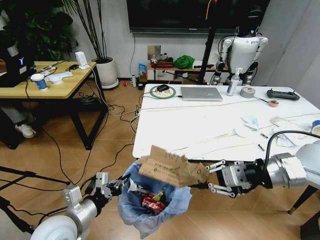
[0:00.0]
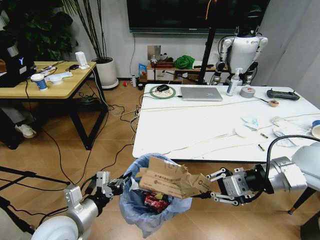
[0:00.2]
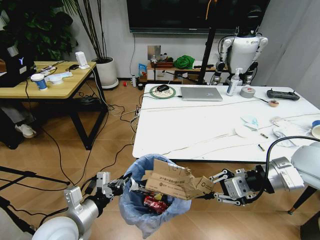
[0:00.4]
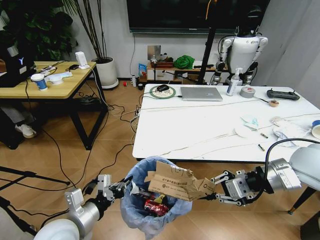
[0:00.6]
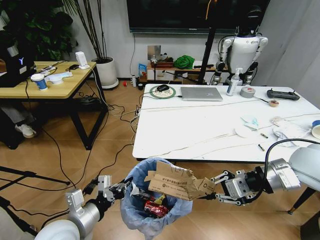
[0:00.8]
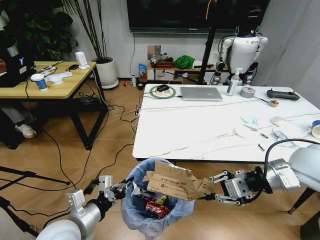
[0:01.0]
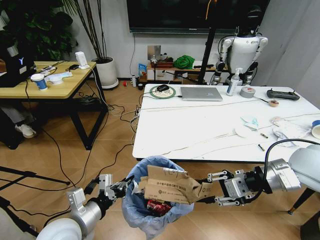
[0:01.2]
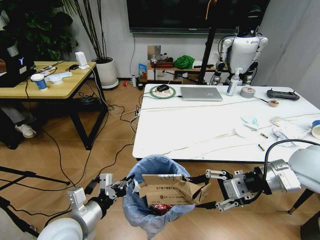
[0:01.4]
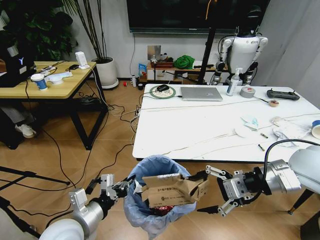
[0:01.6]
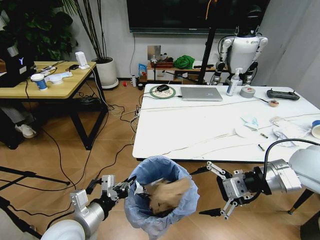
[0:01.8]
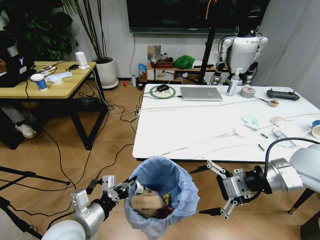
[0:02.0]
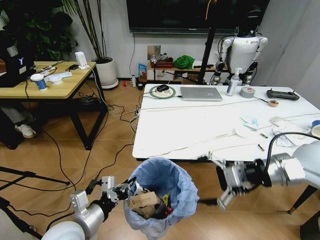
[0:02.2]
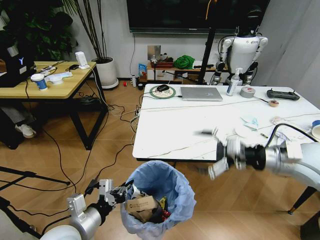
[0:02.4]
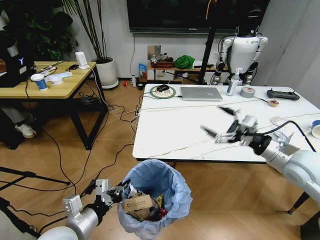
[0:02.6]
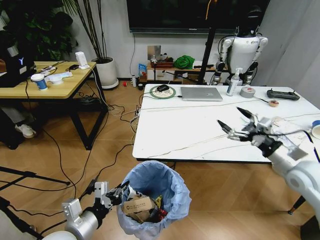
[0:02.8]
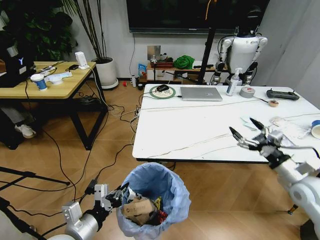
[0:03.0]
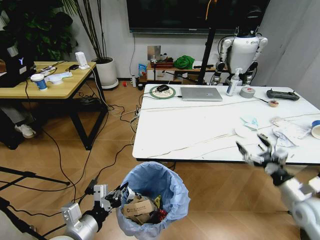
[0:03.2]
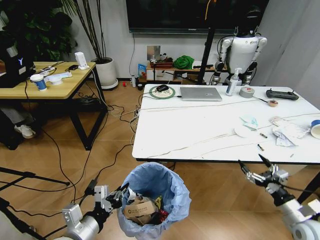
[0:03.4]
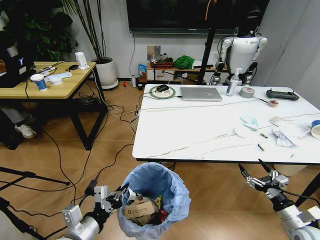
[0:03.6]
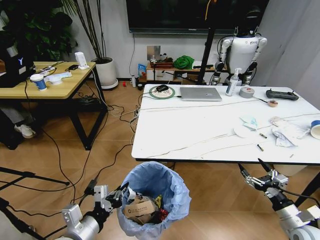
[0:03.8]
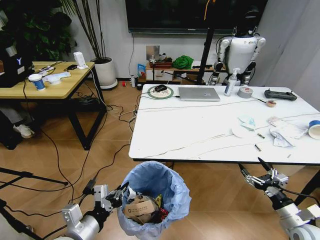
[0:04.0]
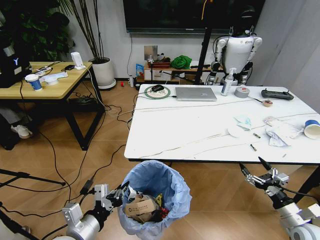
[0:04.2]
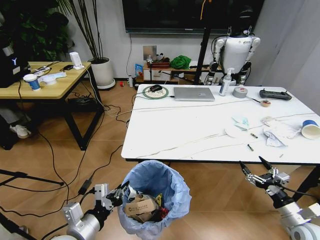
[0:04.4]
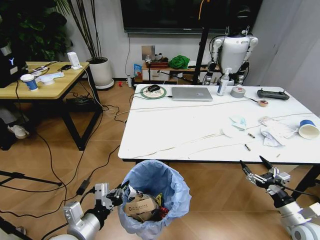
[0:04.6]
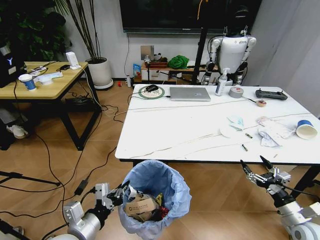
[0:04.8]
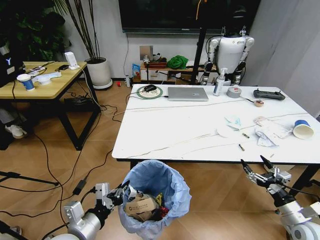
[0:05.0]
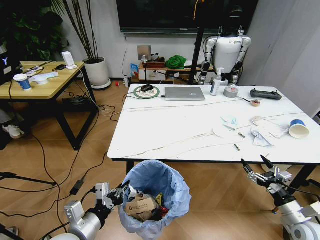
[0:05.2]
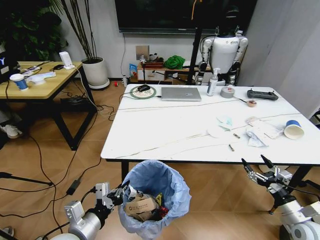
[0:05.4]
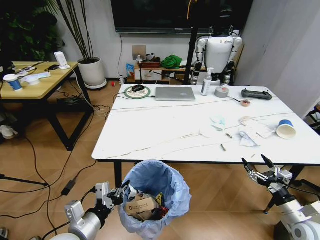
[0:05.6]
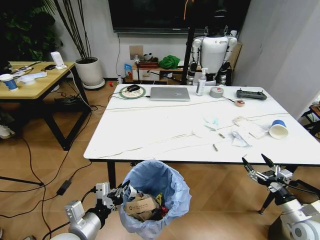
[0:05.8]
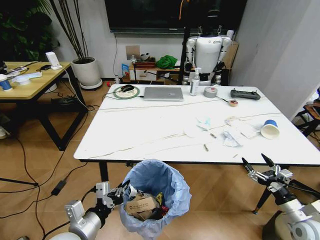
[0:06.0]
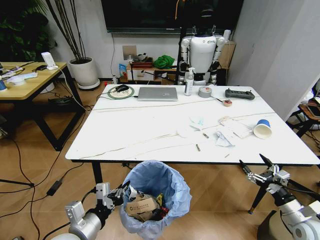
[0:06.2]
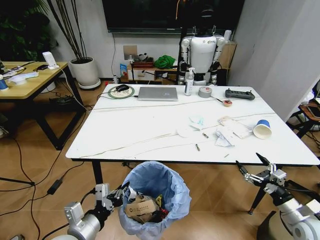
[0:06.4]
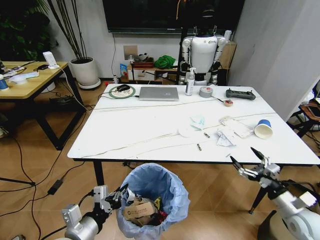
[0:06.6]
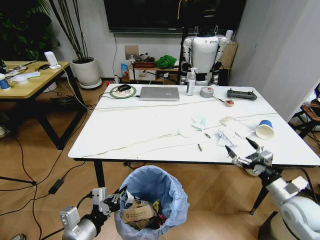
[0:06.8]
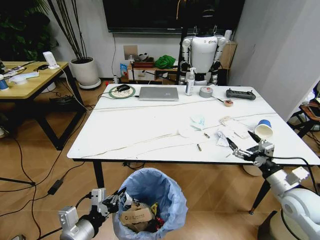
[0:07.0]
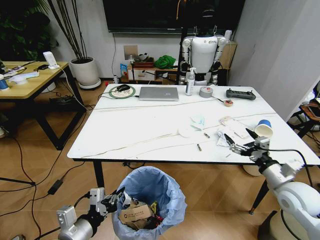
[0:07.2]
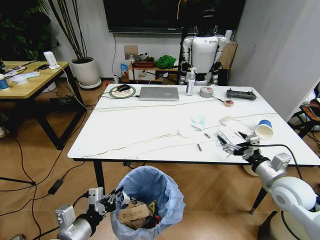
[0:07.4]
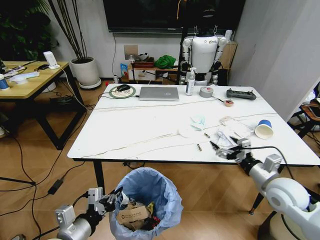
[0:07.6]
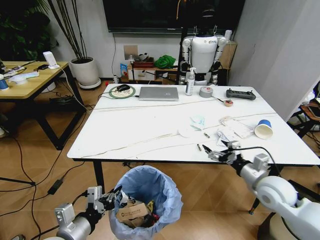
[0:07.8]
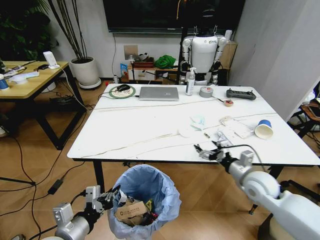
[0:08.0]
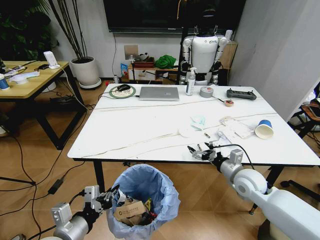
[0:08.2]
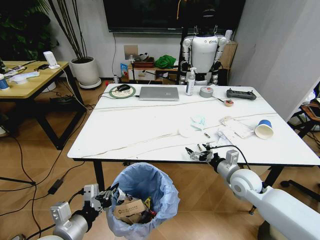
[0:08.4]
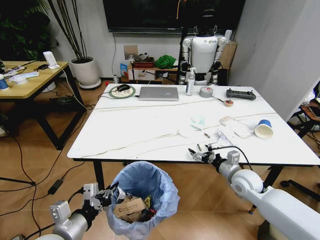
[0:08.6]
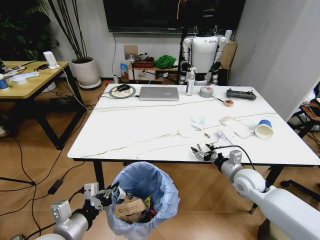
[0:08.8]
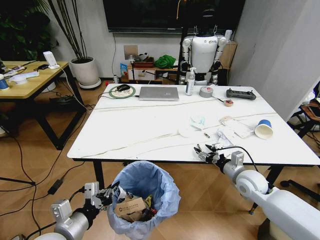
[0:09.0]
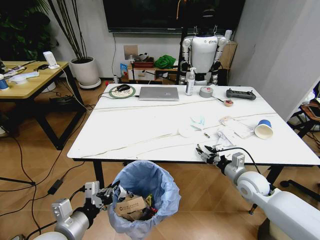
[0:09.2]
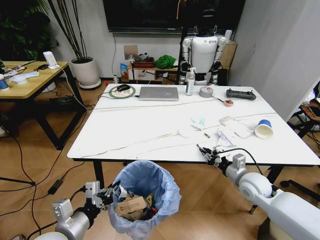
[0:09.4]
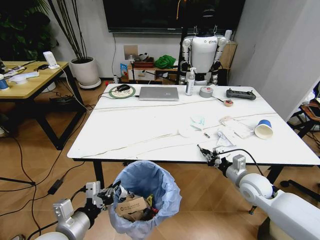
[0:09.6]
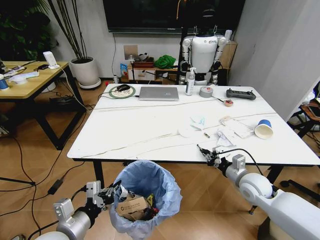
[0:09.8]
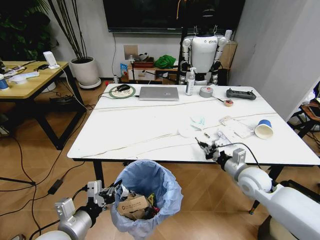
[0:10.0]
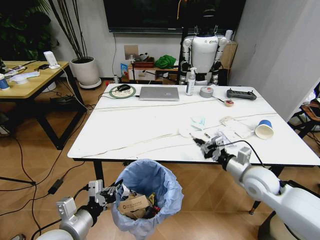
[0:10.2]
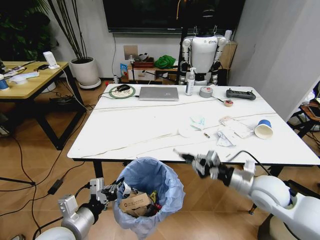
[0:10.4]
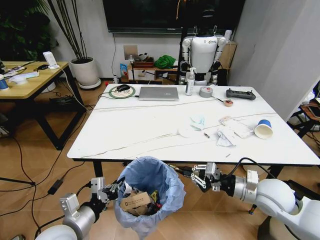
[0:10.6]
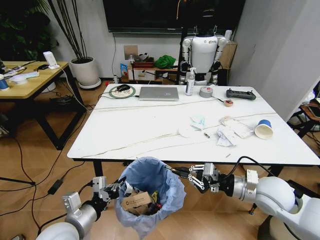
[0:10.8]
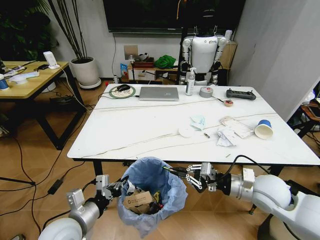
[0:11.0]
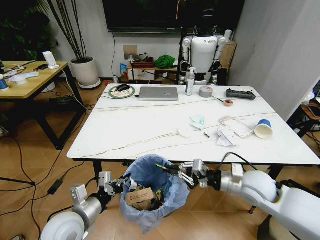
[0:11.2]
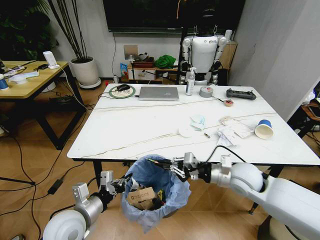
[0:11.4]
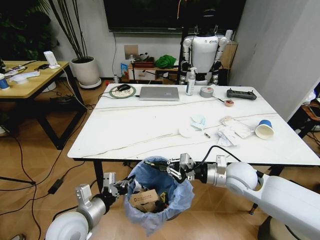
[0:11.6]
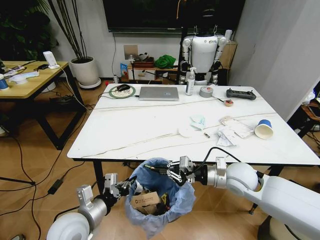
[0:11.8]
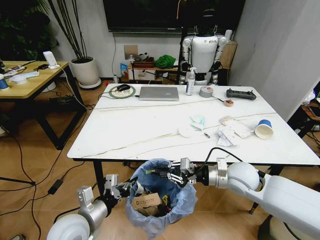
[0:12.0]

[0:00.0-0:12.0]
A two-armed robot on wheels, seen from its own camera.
Task of the whole recording: Pick up the trash bin and place the trash from the table into it.
0:00.0 to 0:01.6: The right gripper opens up.
0:01.6 to 0:03.0: The right gripper travels downward and to the right by some 15 cm.
0:03.0 to 0:04.4: The right gripper heads downward and backward, covering roughly 15 cm.
0:06.0 to 0:07.6: The right gripper shifts some 15 cm upward, to the left and forward.
0:07.6 to 0:09.0: The right gripper heads downward, forward and to the left, covering about 10 cm.
0:09.0 to 0:10.4: The right gripper heads upward and backward, covering some 10 cm, and closes up.
0:10.4 to 0:12.0: The right gripper goes about 5 cm to the left.

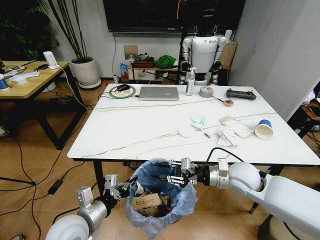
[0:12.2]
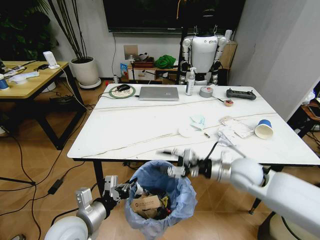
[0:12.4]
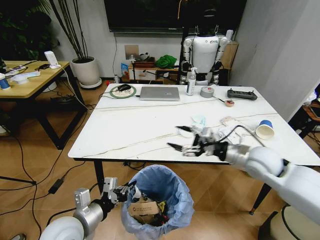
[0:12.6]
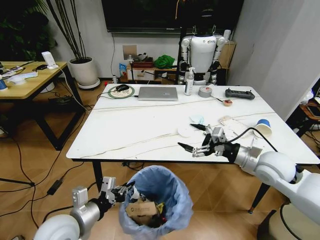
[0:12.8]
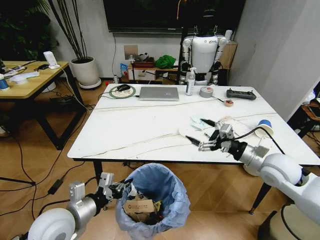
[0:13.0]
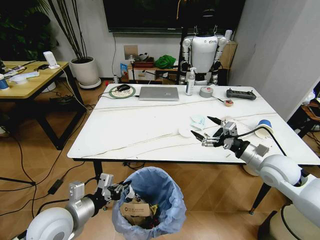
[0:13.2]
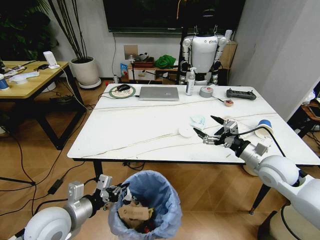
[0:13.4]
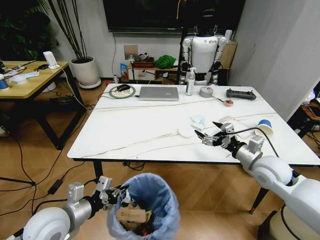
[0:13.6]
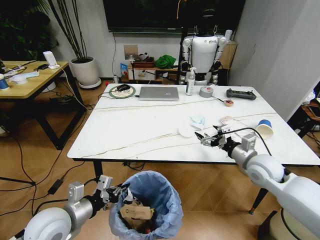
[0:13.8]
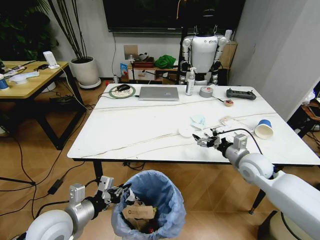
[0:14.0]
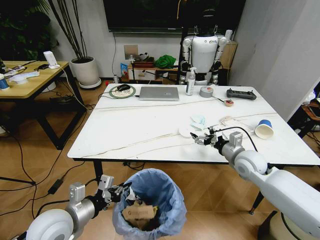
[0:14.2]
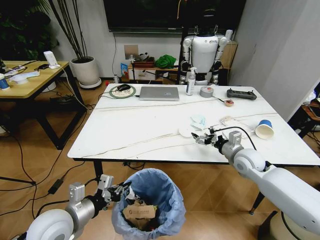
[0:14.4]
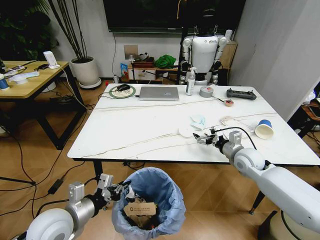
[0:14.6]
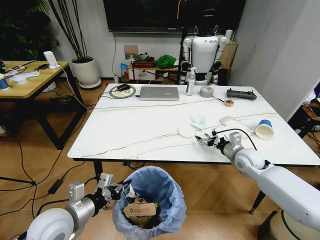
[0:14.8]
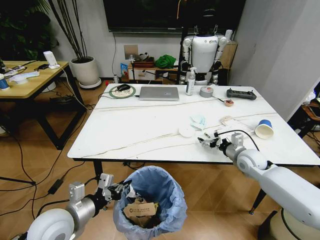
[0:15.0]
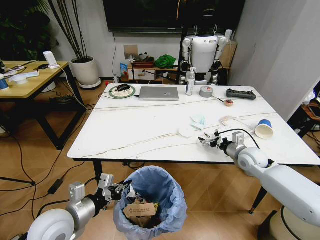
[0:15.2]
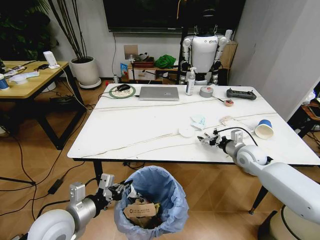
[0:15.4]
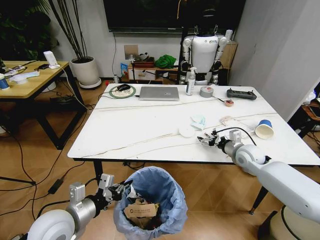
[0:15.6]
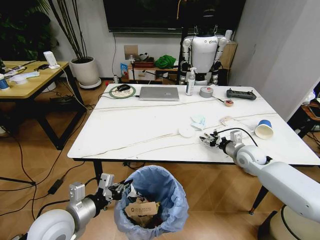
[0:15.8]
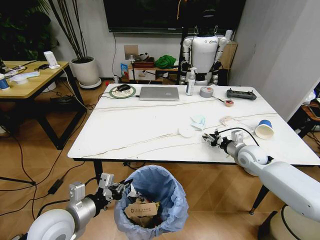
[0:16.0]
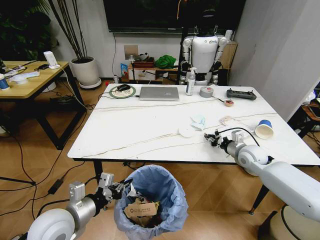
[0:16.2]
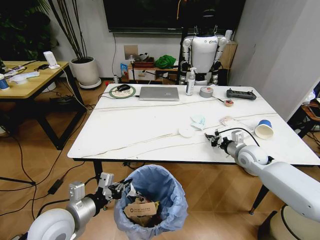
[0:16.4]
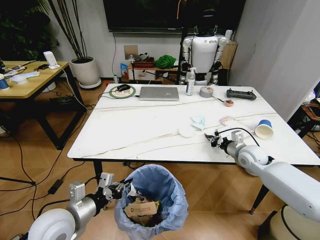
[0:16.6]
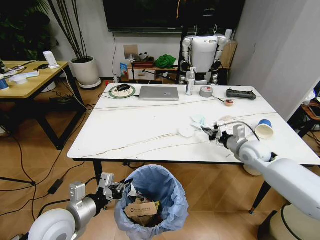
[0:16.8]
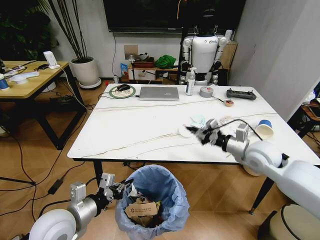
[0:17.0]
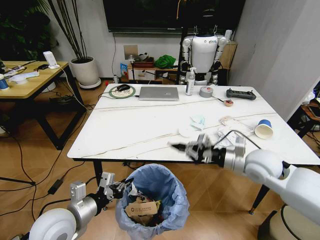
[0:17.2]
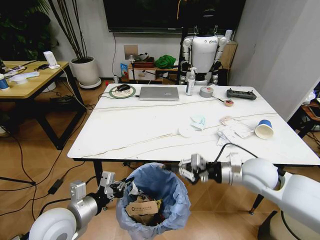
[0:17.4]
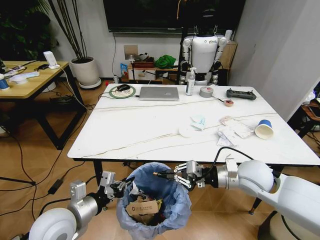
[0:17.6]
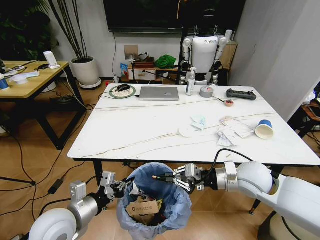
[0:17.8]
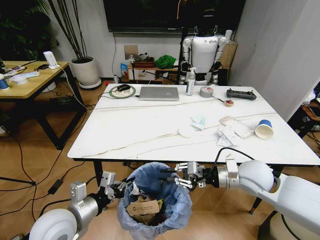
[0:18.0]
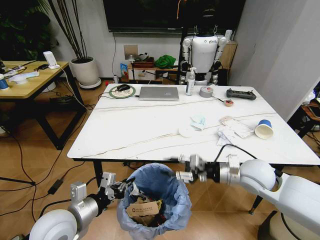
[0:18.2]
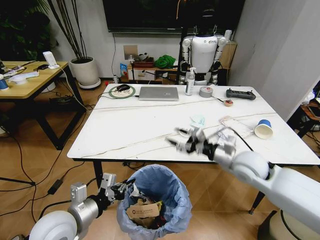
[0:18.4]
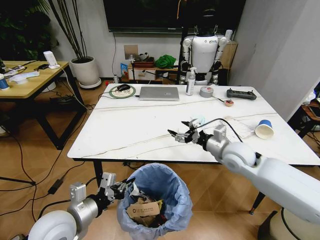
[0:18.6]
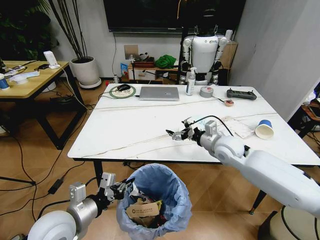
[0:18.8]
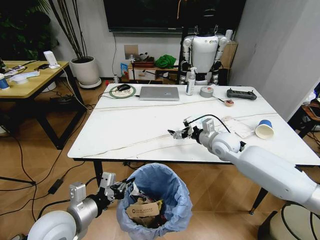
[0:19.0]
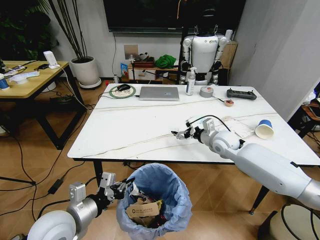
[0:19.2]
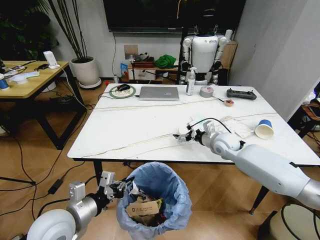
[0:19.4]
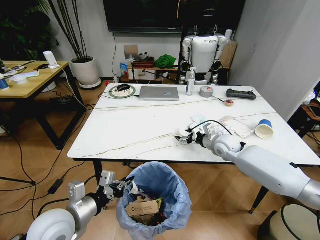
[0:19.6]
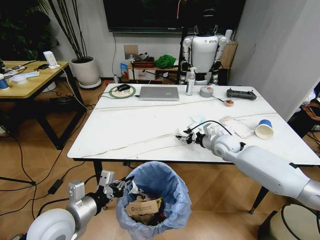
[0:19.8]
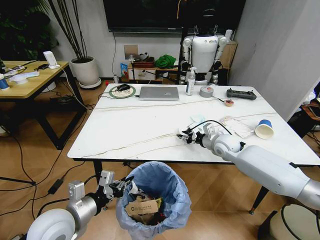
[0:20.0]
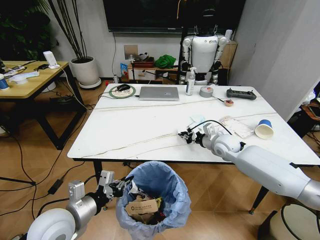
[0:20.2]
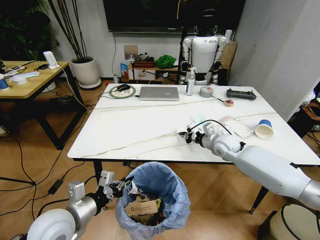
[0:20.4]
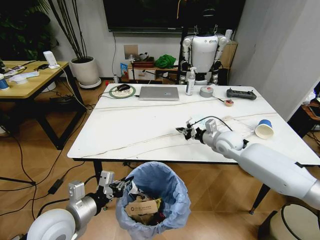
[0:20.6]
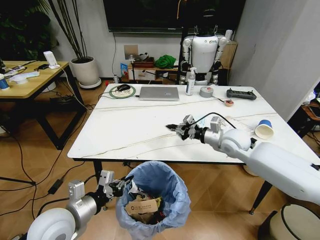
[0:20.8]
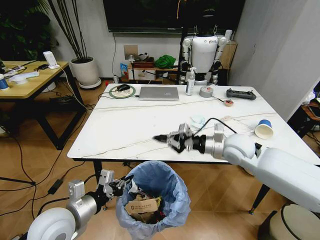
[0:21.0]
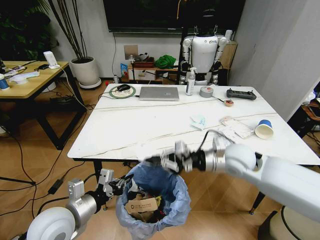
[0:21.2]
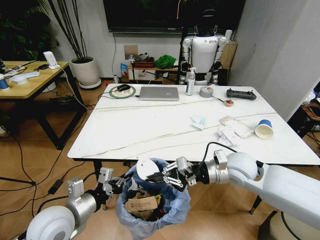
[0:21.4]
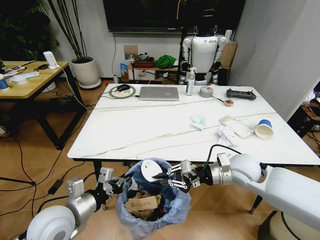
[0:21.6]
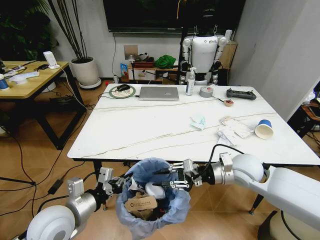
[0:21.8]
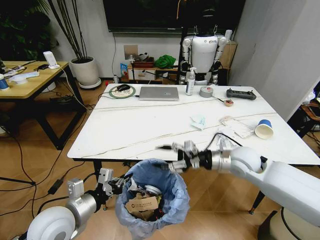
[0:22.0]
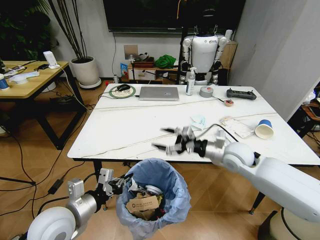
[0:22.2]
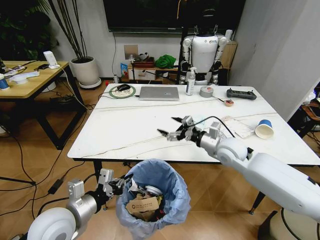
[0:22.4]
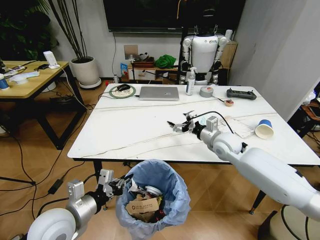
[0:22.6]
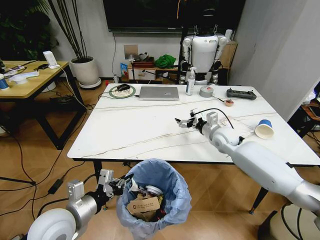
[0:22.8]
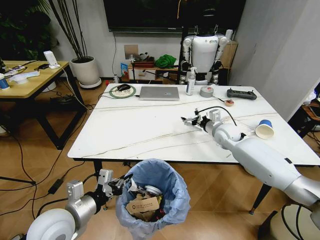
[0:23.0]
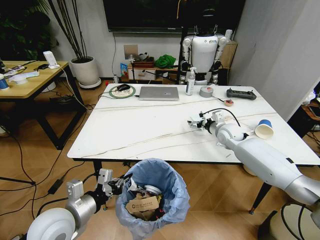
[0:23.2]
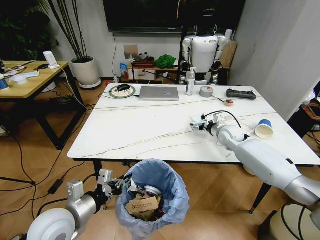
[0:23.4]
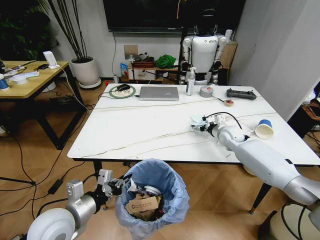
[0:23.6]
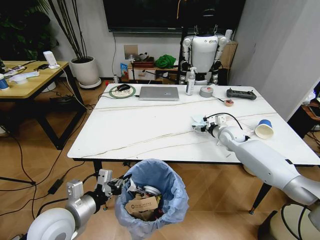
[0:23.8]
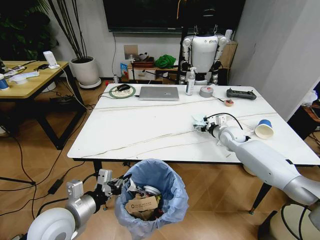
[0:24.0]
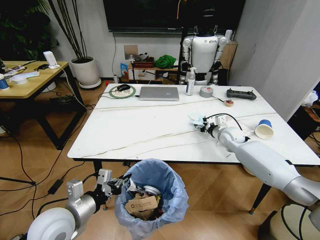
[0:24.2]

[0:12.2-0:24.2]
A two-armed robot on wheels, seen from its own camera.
Task of the whole recording: Pick up the trash bin and place the trash from the table into it.
0:12.2 to 0:13.8: The left gripper changes place by approximately 5 cm, while the right gripper moves to the right, roughly 5 cm, and opens.
0:13.8 to 0:15.2: The right gripper heads forward and downward, covering about 10 cm.
0:15.2 to 0:16.6: The right gripper closes up.
0:16.6 to 0:18.2: The right gripper goes about 15 cm backward, to the left and upward.
0:18.2 to 0:19.8: The right gripper goes some 15 cm forward, and opens, then closes again.
0:19.8 to 0:21.2: The right gripper shifts some 15 cm backward and upward, and closes its fingers.
0:21.2 to 0:22.6: The right gripper moves forward, roughly 10 cm, and opens its fingers.
0:22.6 to 0:24.2: The right gripper travels forward and to the right by approximately 10 cm, and closes its fingers.
